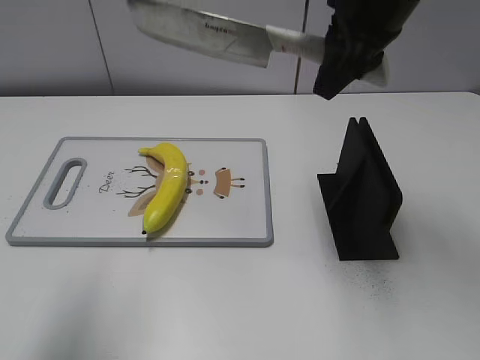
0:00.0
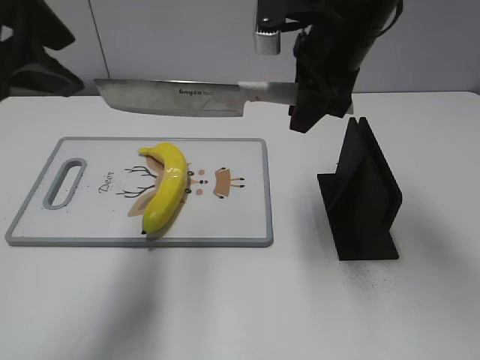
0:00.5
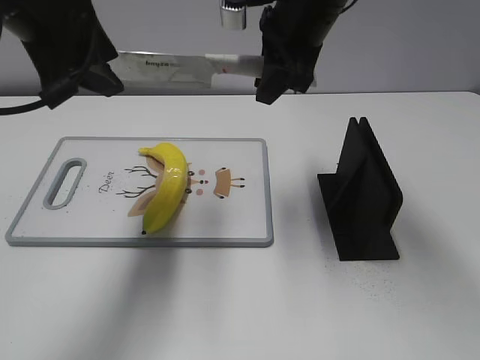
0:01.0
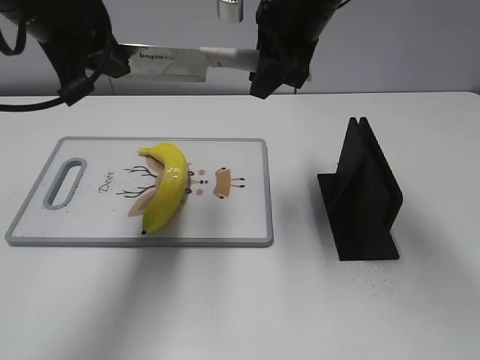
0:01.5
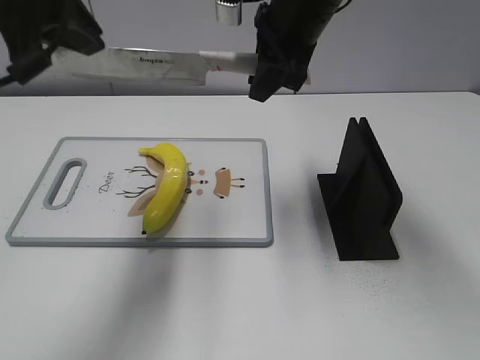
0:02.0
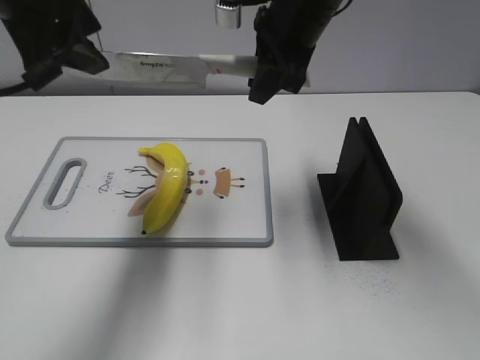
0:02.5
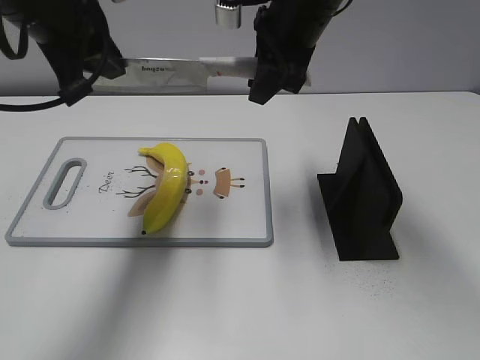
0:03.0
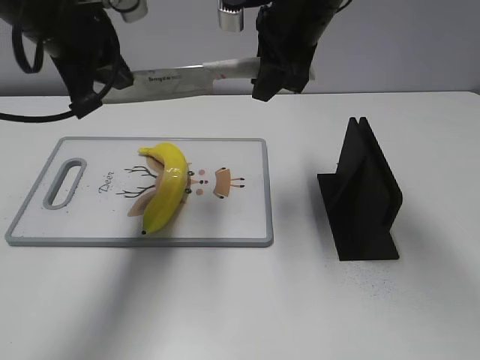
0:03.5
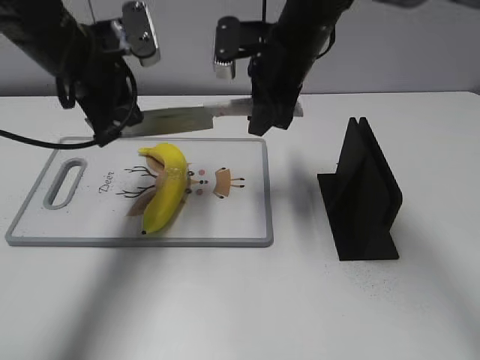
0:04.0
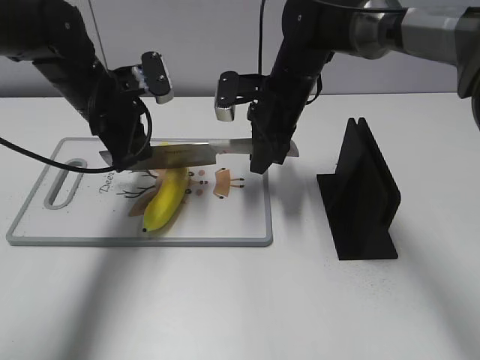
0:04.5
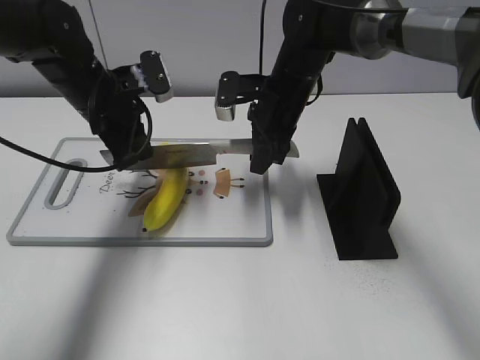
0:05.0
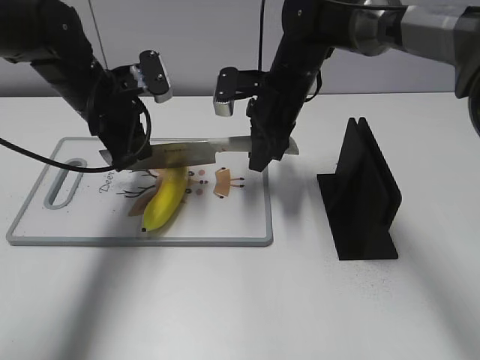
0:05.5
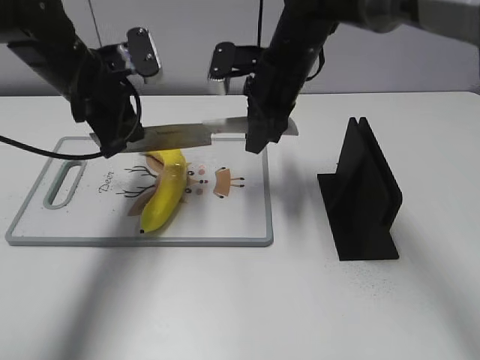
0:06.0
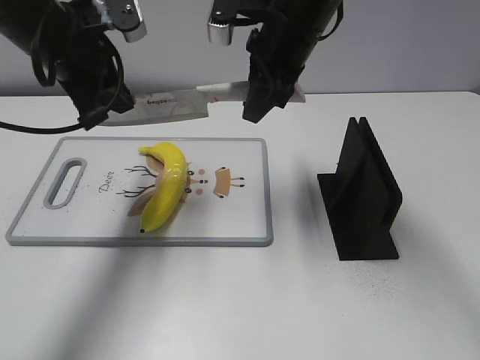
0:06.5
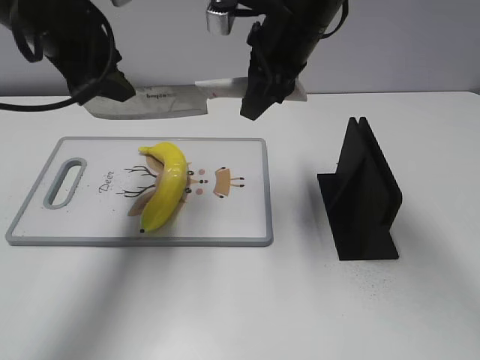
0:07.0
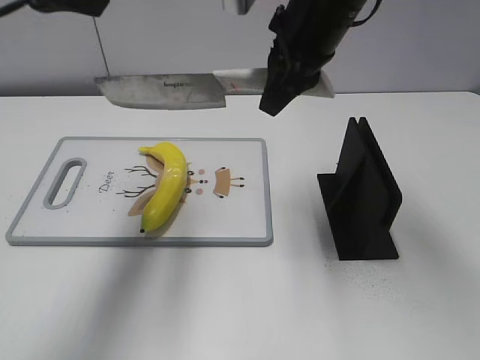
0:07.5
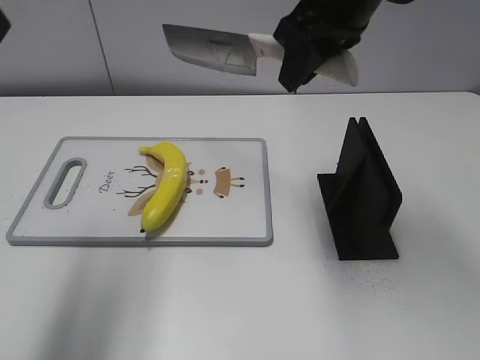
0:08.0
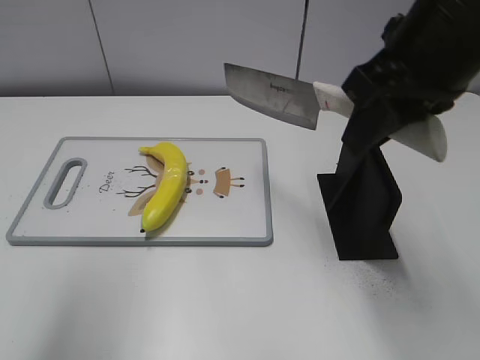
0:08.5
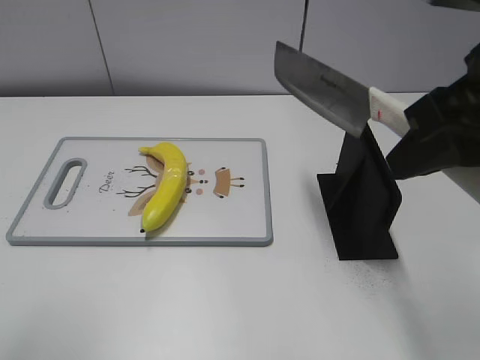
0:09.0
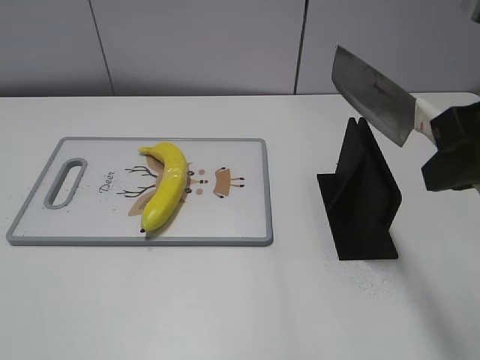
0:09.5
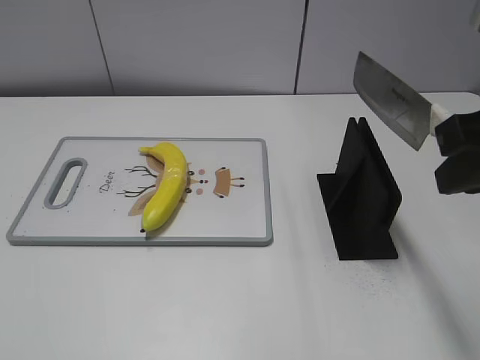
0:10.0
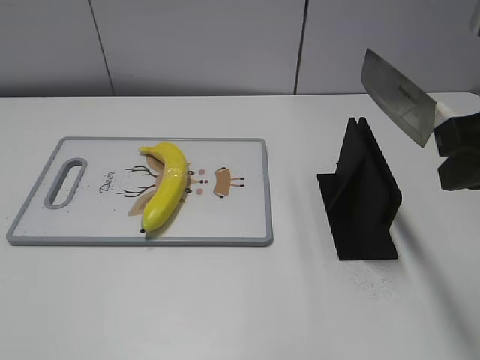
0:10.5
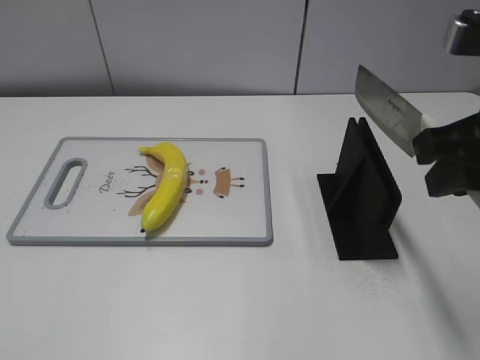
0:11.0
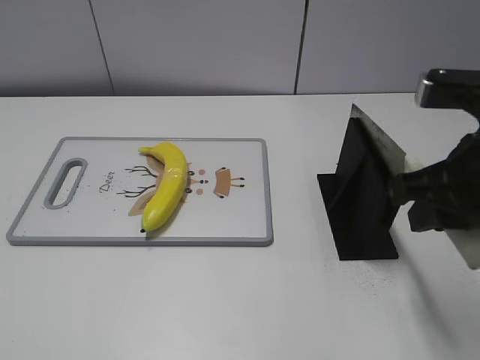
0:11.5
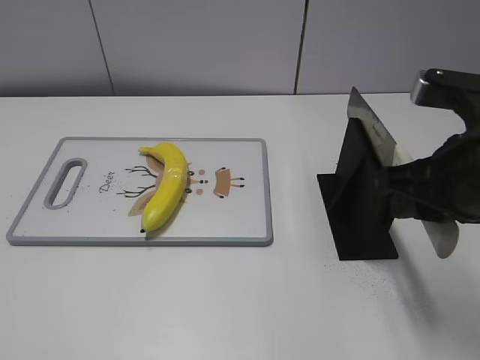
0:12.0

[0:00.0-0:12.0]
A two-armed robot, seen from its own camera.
Task of the whole recording: cut plastic banana.
Step, 0:00.0 to 0:06.0: Lift the knife with your right hand.
Step, 0:06.5 to 0:08.5: Cut the banana with your right hand.
Step, 0:09.5 to 0:11.0: Lift the knife with your right hand.
0:00.0 to 0:02.0: The left gripper shifts roughly 15 cm forward and to the right, and closes up; the right gripper goes approximately 5 cm to the left.
0:02.0 to 0:04.0: The left gripper goes about 15 cm downward and forward, and opens, then closes once more. Meanwhile the right gripper is displaced downward by some 5 cm.
0:06.0 to 0:08.0: Both grippers move upward and backward, roughly 20 cm. The left gripper opens.
0:08.0 to 0:10.0: The left gripper is displaced backward and downward by roughly 30 cm; the right gripper goes some 20 cm backward and to the right.
0:10.0 to 0:12.0: The right gripper heads downward, covering about 10 cm.

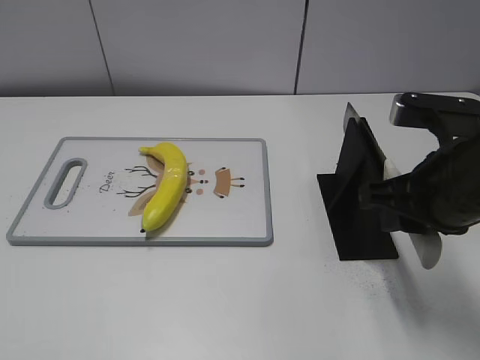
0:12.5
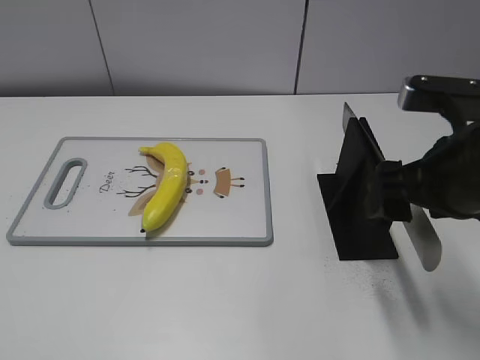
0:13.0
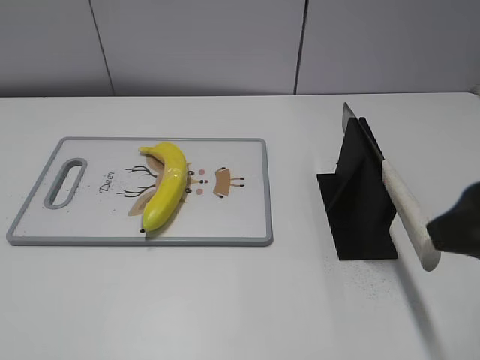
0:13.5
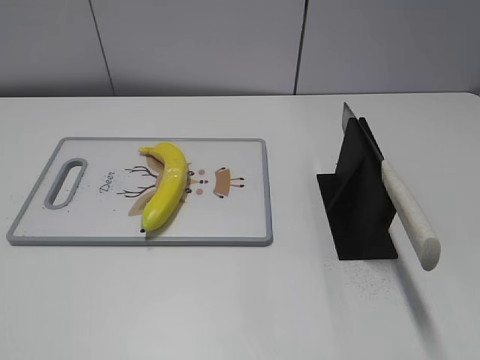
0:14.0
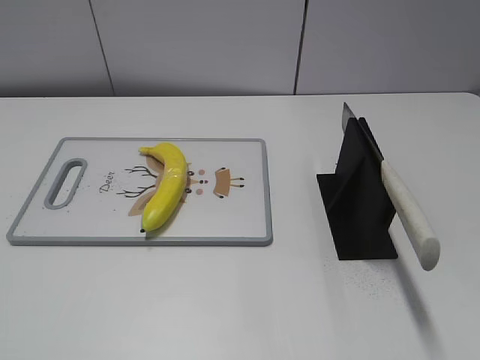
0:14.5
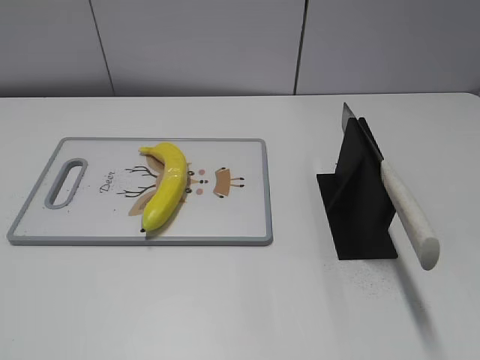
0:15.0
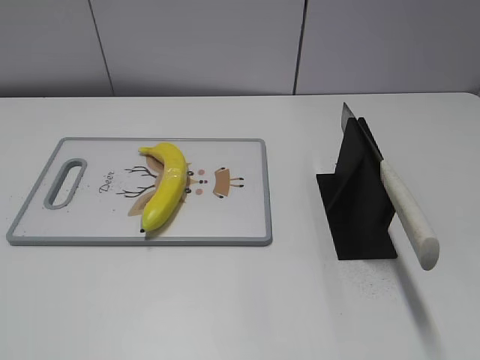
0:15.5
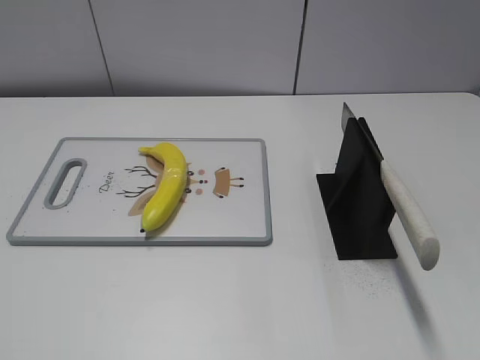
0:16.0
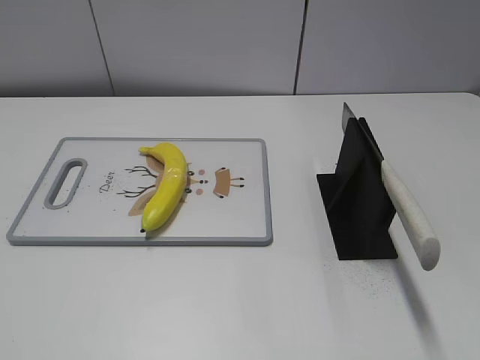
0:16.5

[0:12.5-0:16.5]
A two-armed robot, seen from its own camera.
Task of the whole recording: cut plastic banana.
Step, 0:12.5 to 0:16.5: Place the knife on the storage rack with your right hand.
0:12.5 to 0:14.5: The right gripper shifts some 25 cm backward and to the right, and opens up.

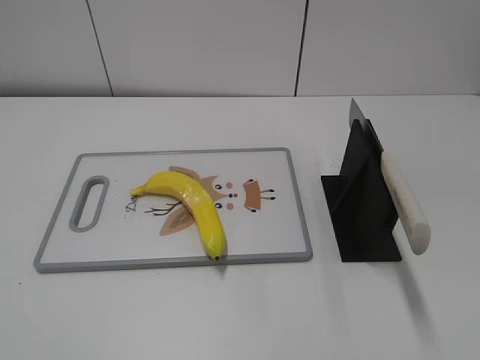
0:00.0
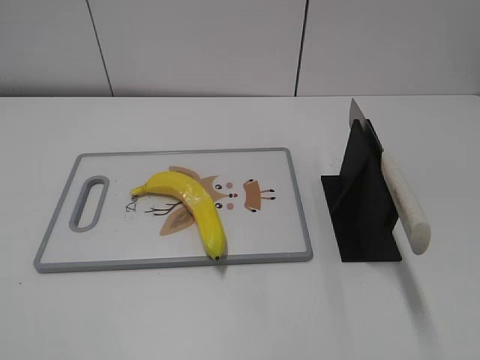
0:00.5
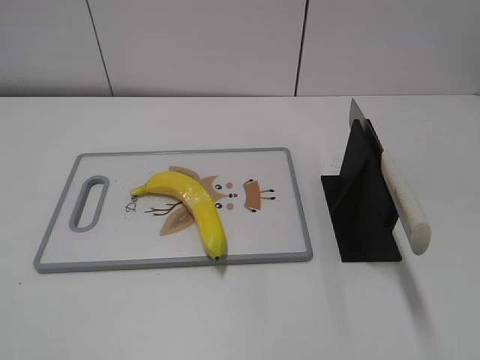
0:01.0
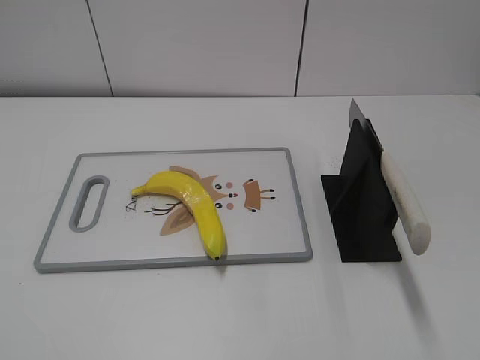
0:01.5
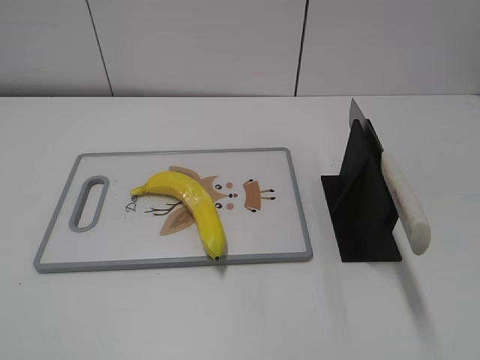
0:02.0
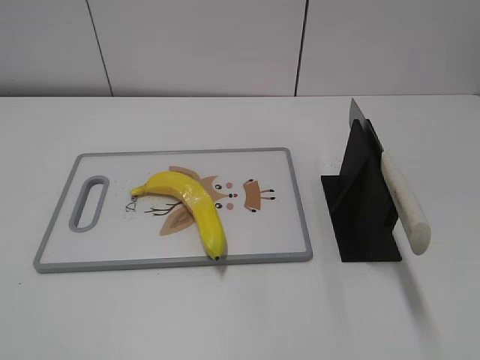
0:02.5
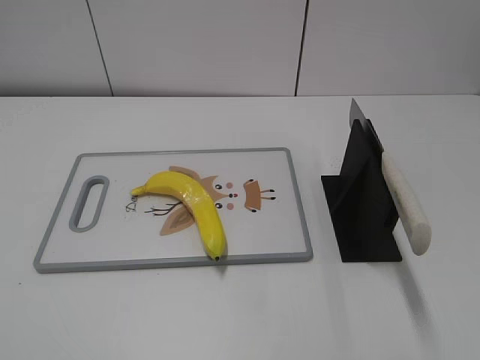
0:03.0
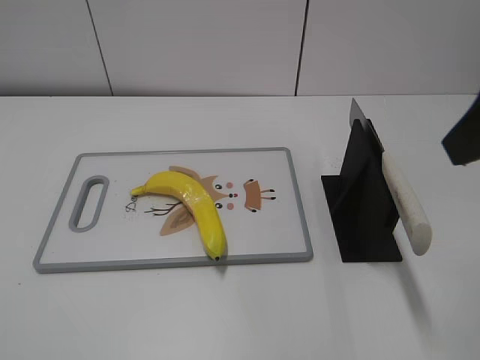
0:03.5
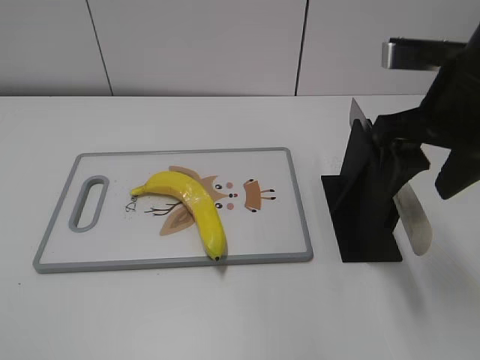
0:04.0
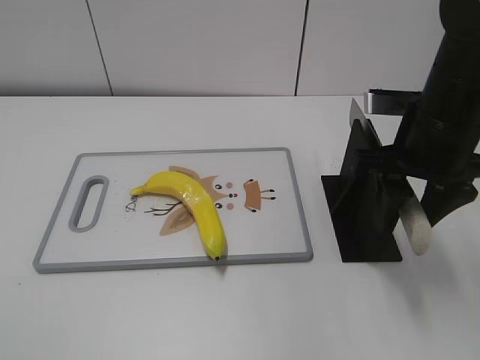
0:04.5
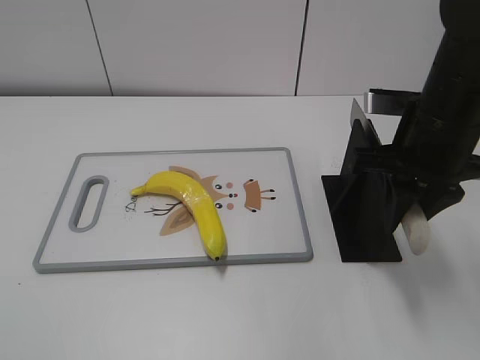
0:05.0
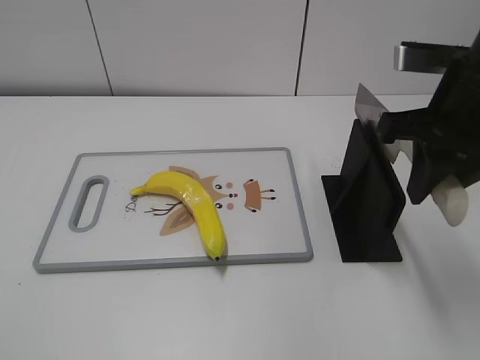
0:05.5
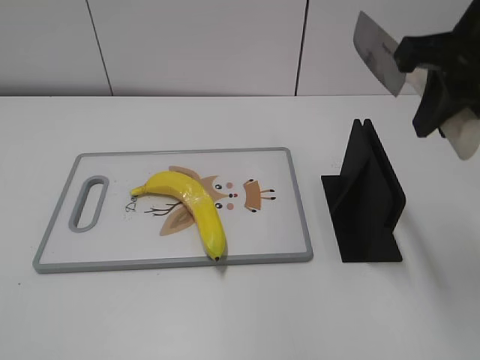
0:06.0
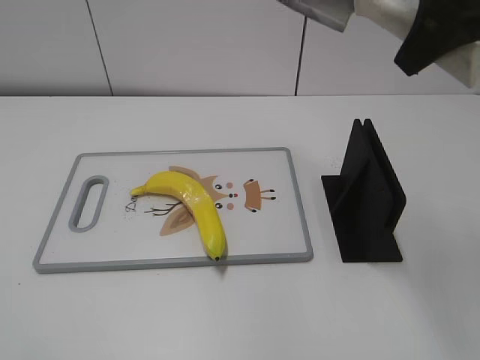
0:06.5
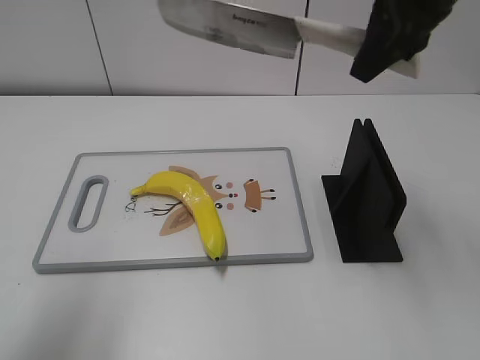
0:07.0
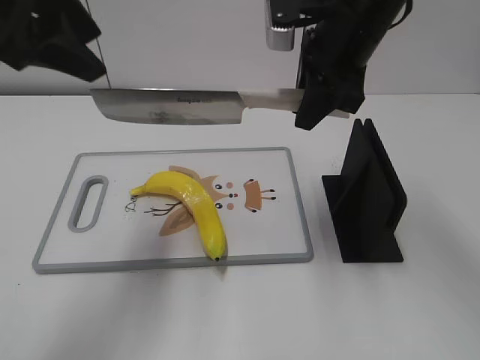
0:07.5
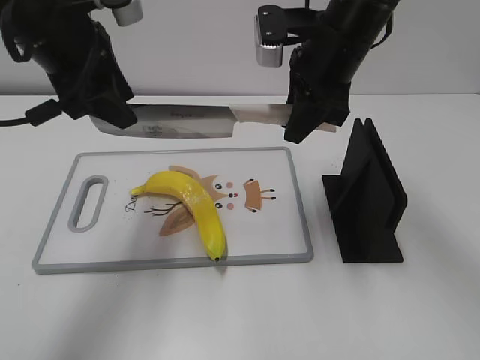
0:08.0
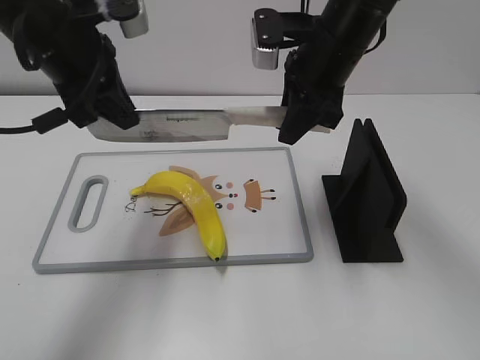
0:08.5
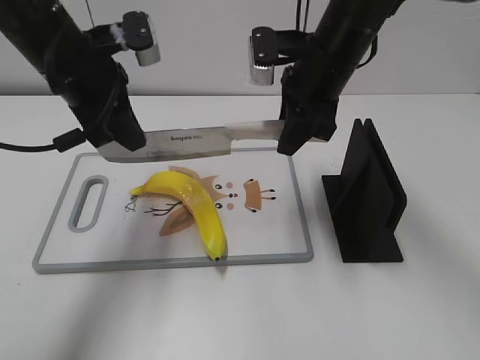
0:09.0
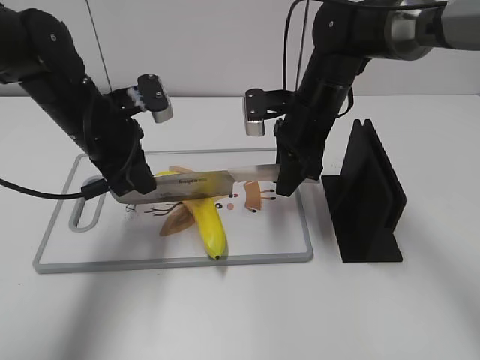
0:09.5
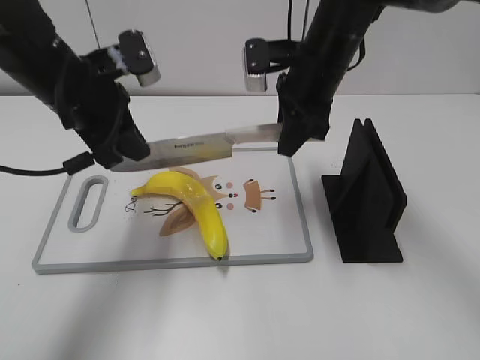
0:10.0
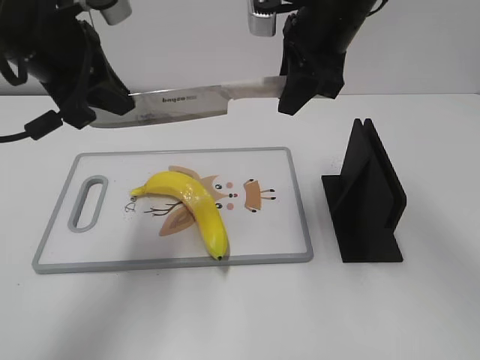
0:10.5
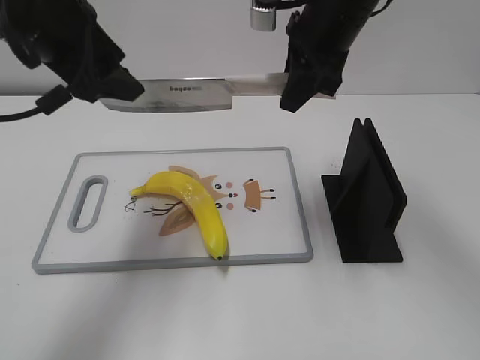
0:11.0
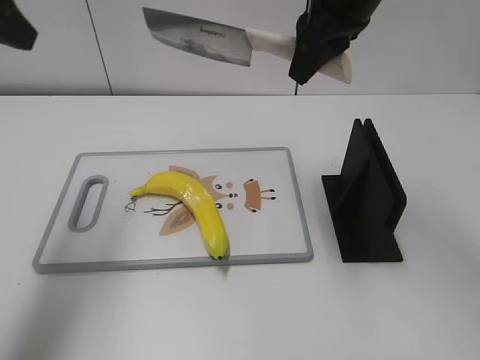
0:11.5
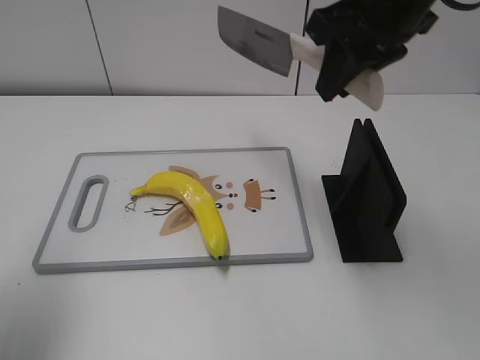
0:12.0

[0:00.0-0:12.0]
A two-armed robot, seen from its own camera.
Task of the whole recording: cut plastic banana.
Step, 0:00.0 to 0:05.5: Grab the knife handle with your right hand.
Step, 0:06.0 to 0:10.5: Lift the knife with your right hand.
Step, 0:11.0 to 0:11.5: Cut the banana with your right hand.
0:02.0 to 0:04.0: The right gripper heads forward, covering some 30 cm.
0:04.0 to 0:06.0: The right gripper travels upward by approximately 5 cm, and closes up.
0:06.0 to 0:08.0: The right gripper travels forward, to the left and downward by approximately 15 cm. The left gripper heads forward and to the right, covering about 35 cm.
0:08.0 to 0:10.0: The left gripper moves downward, roughly 5 cm, and closes up.
0:10.0 to 0:12.0: The right gripper is displaced upward and backward by roughly 15 cm. Meanwhile the left gripper goes approximately 20 cm to the left, upward and backward, and opens.
